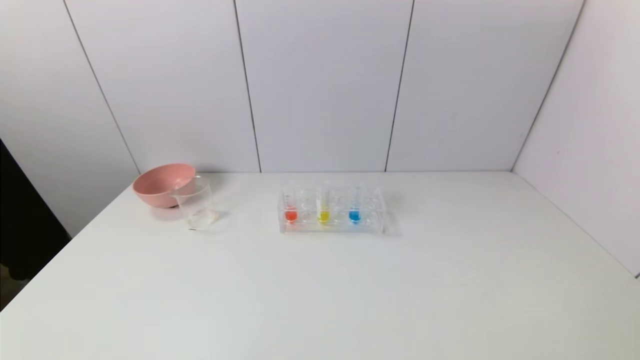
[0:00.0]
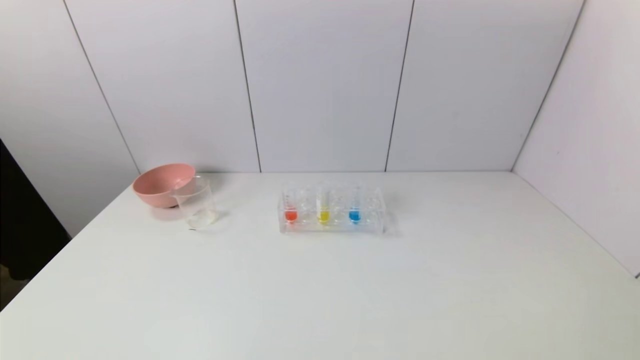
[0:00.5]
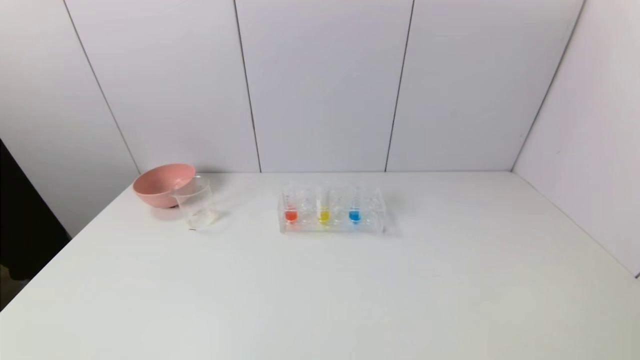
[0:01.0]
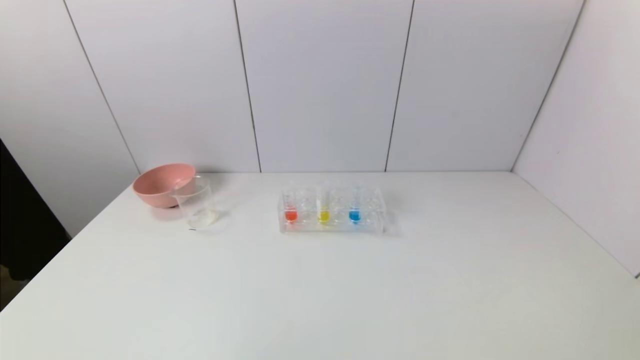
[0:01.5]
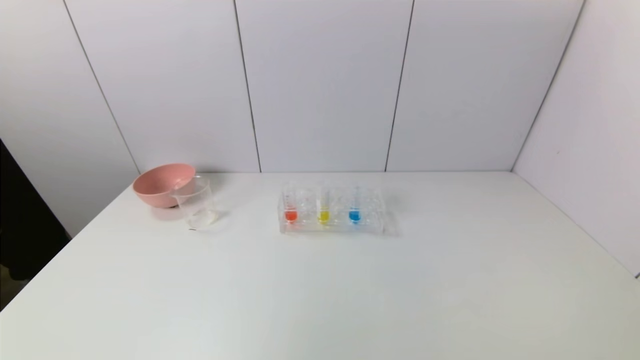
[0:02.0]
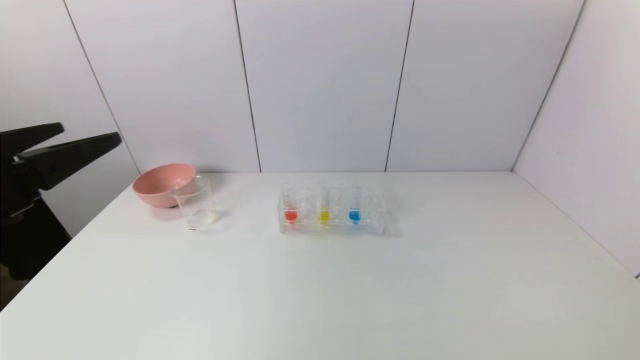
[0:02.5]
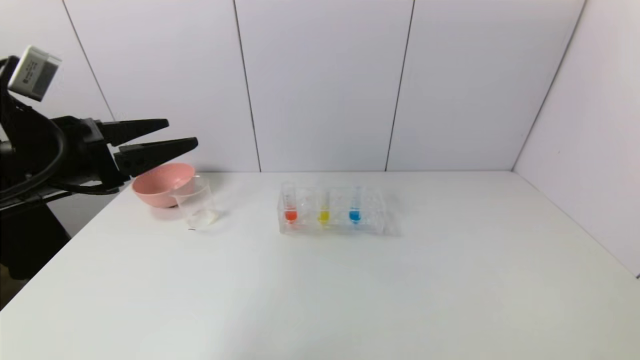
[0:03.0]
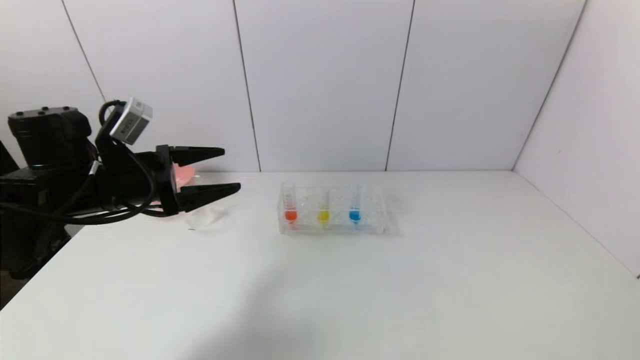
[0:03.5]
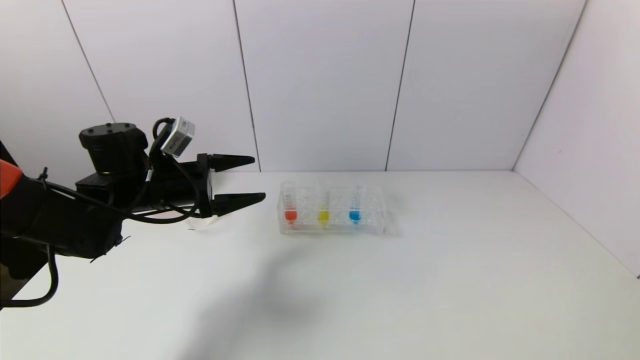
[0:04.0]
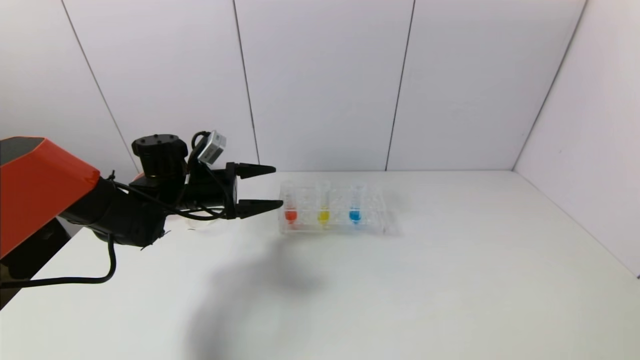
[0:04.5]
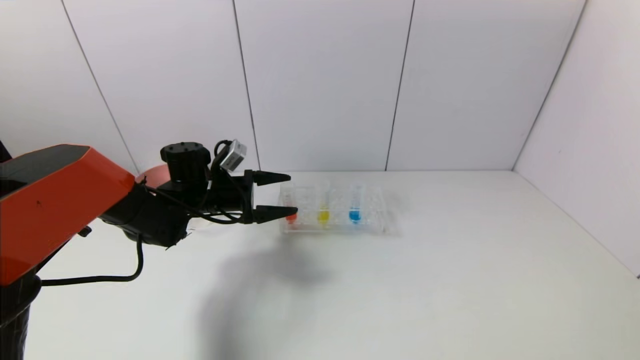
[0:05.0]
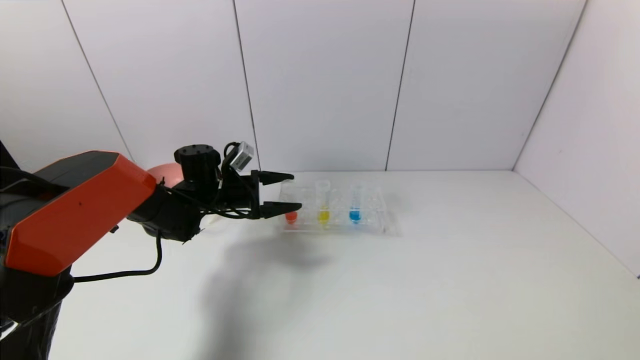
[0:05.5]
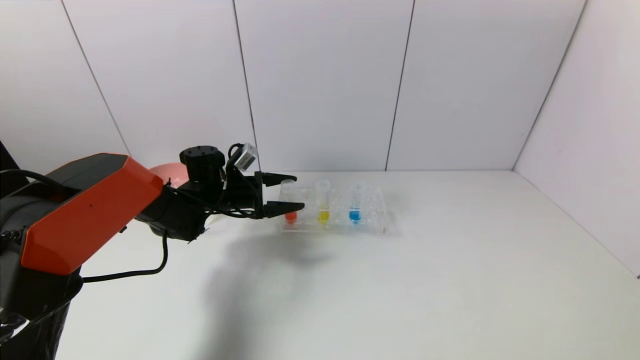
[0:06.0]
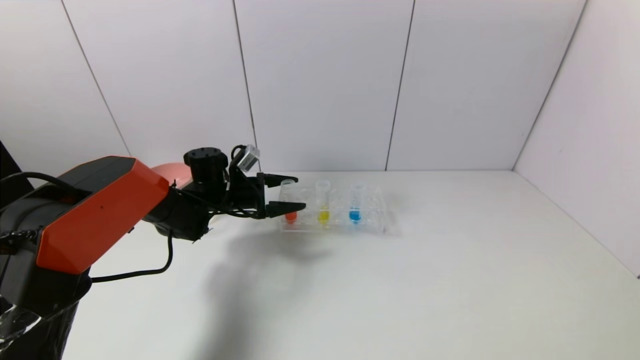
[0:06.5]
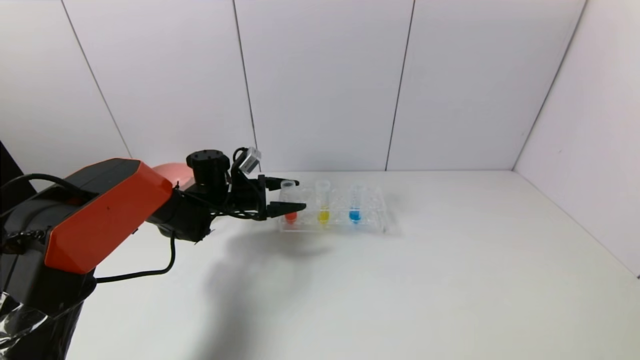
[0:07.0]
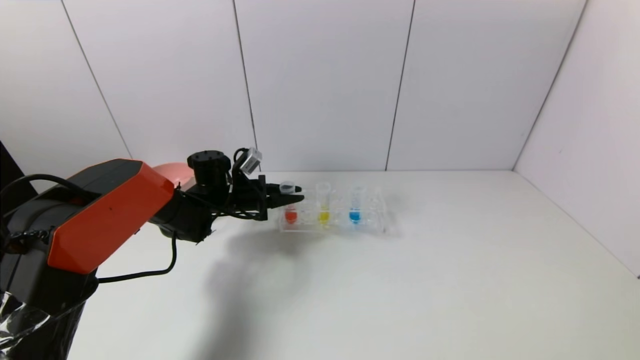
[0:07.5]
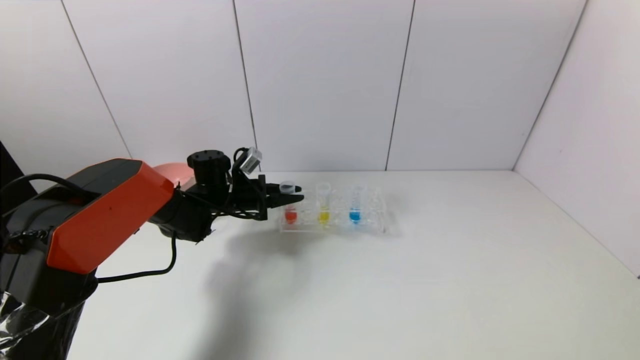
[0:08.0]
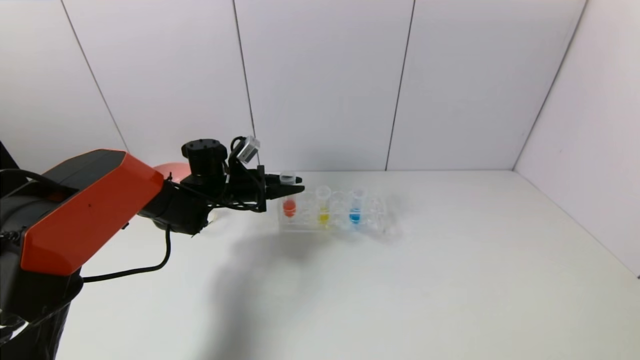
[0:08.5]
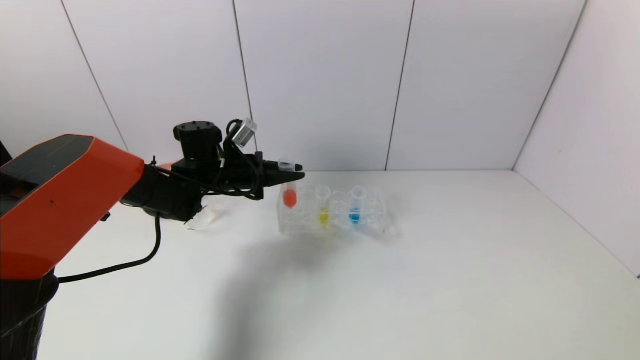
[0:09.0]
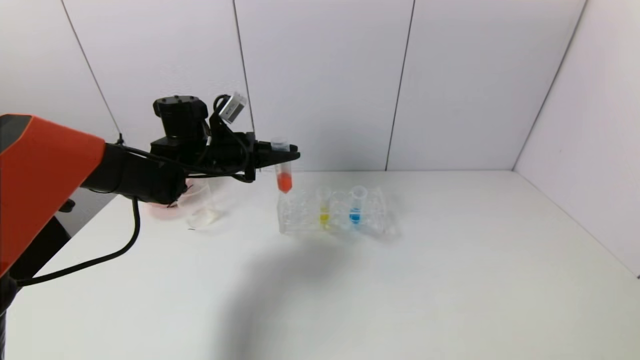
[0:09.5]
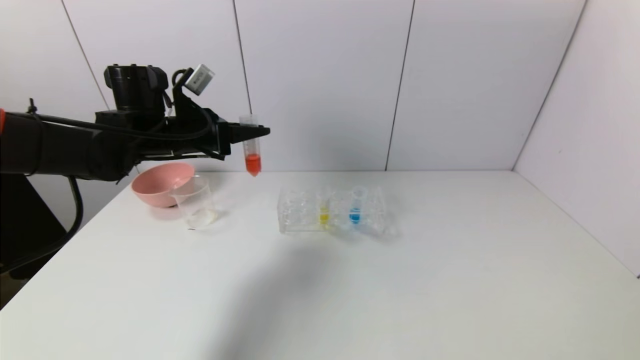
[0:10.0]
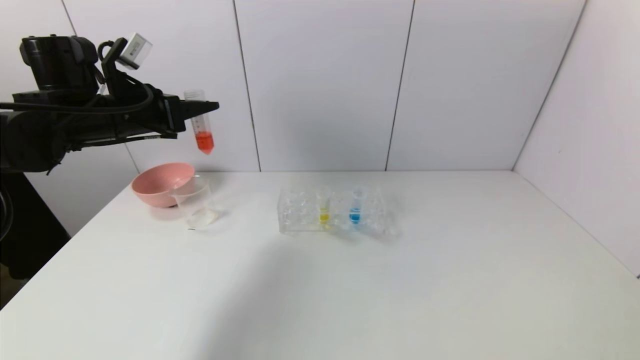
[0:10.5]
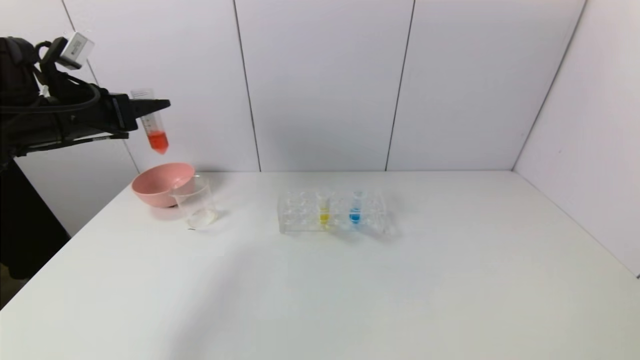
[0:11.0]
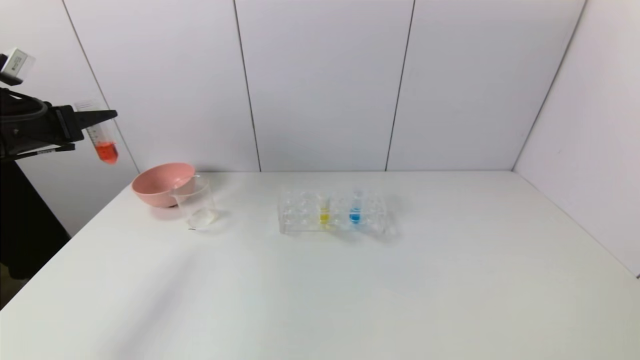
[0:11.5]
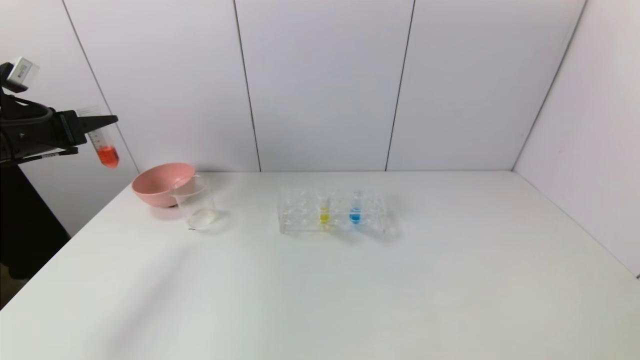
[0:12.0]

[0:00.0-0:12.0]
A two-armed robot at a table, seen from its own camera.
Task of the whole recording: pick up the test tube with yellow pigment and the test tube with red pigment by grippers and pour them into the beaker.
Step, 0:00.0 to 0:07.5: Grasp the red reagent with the left gripper.
0:02.0 to 0:04.0: The left gripper heads forward, covering roughly 30 cm.
0:04.0 to 0:06.0: The left gripper goes approximately 15 cm forward, downward and to the right.
0:06.0 to 0:08.0: The left gripper closes.
0:08.0 to 0:10.0: The left gripper moves upward, some 15 cm.
0:10.0 to 0:12.0: The left gripper moves to the left, approximately 20 cm.

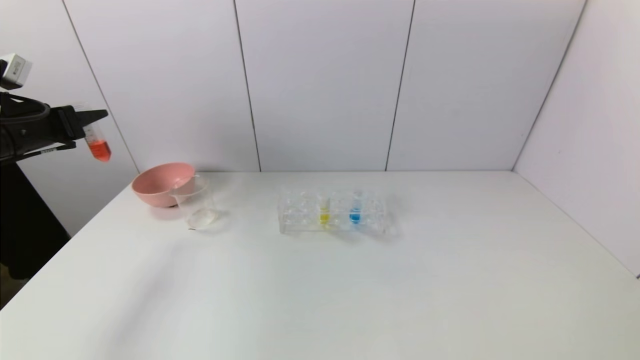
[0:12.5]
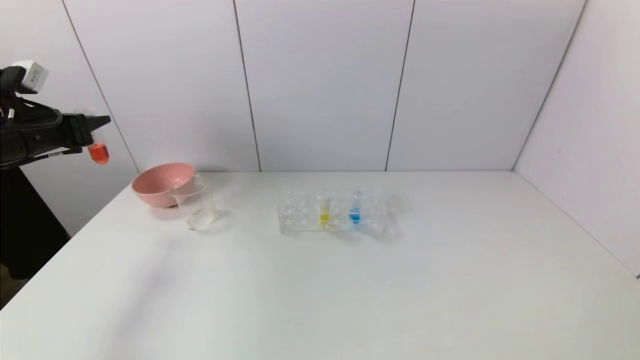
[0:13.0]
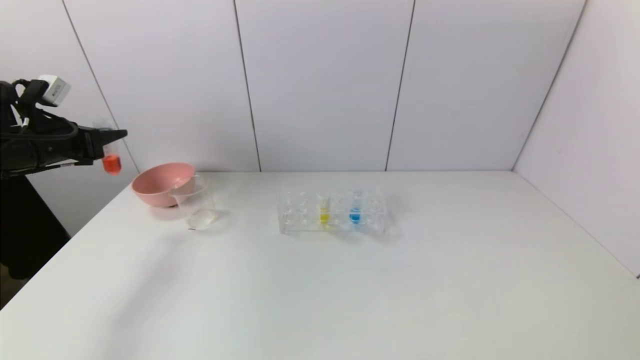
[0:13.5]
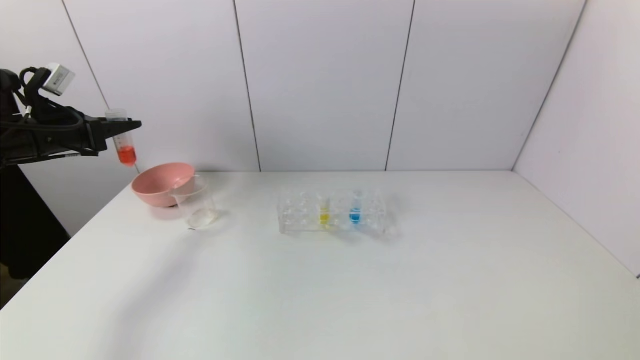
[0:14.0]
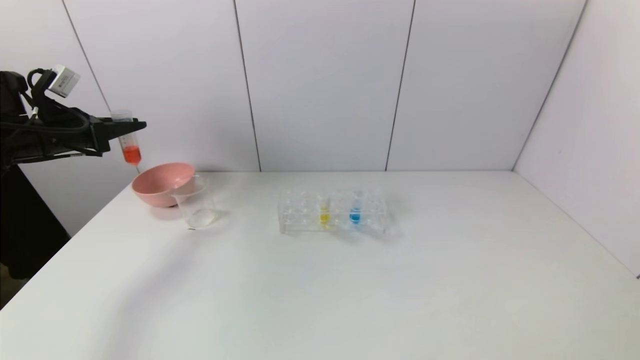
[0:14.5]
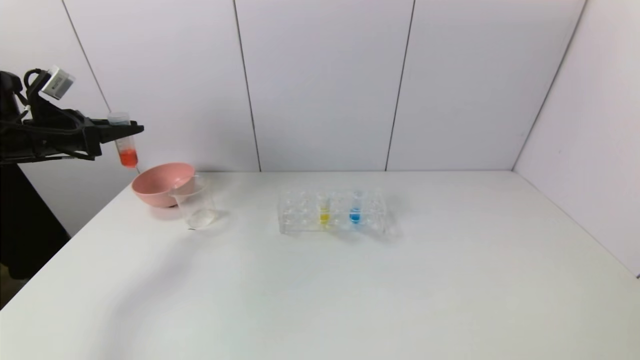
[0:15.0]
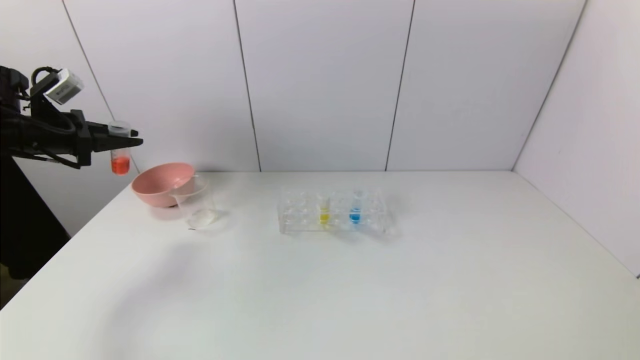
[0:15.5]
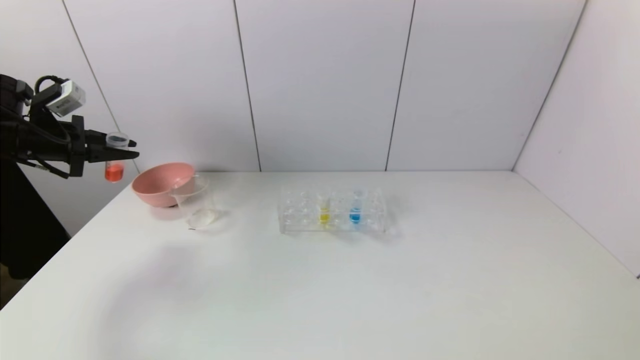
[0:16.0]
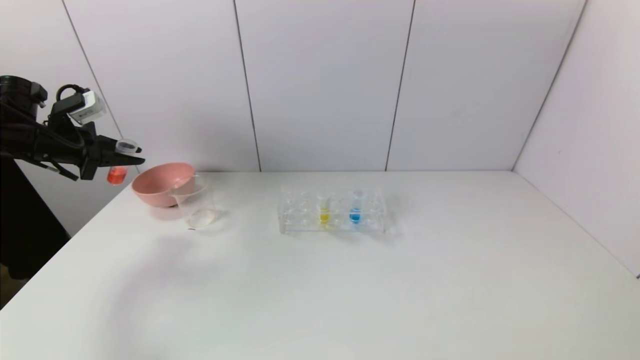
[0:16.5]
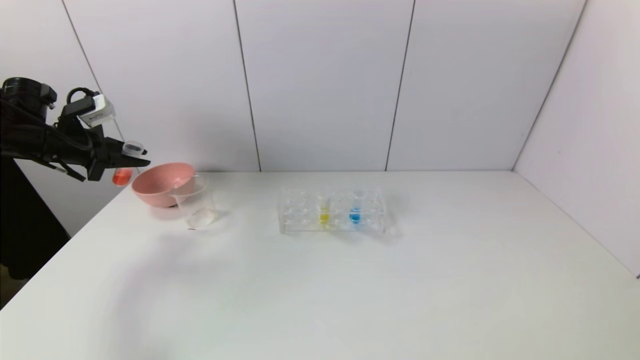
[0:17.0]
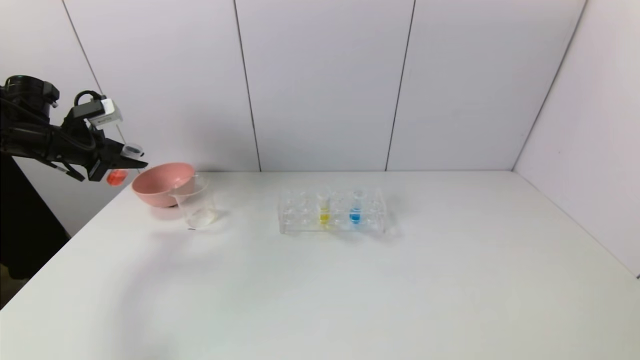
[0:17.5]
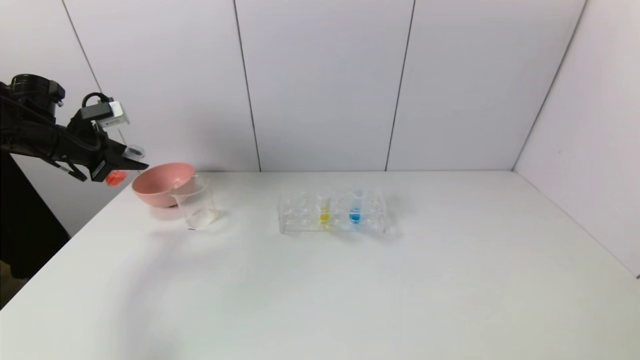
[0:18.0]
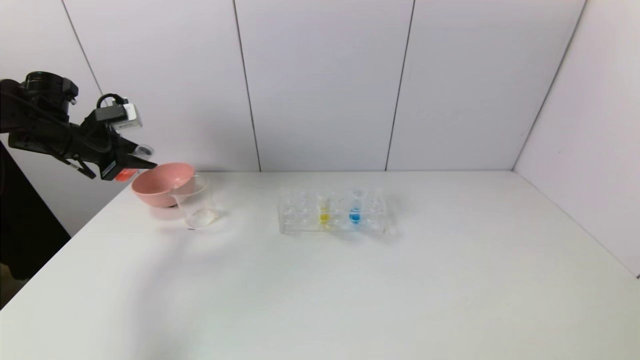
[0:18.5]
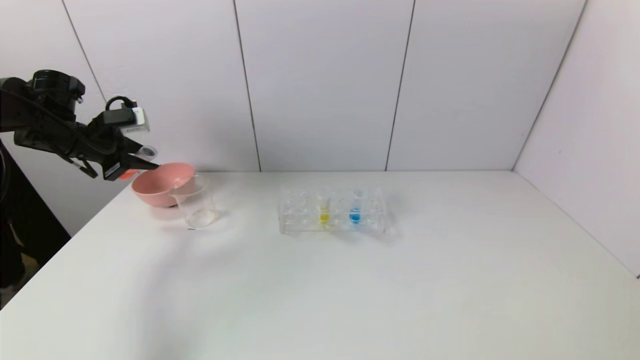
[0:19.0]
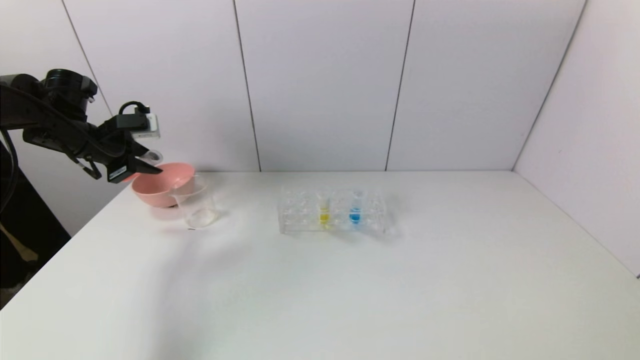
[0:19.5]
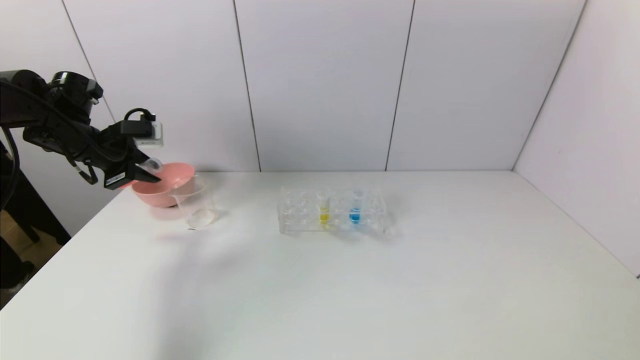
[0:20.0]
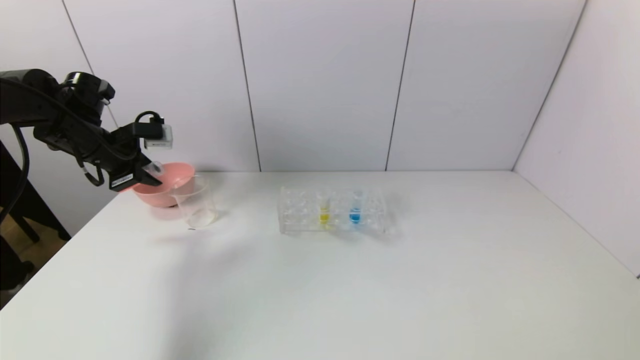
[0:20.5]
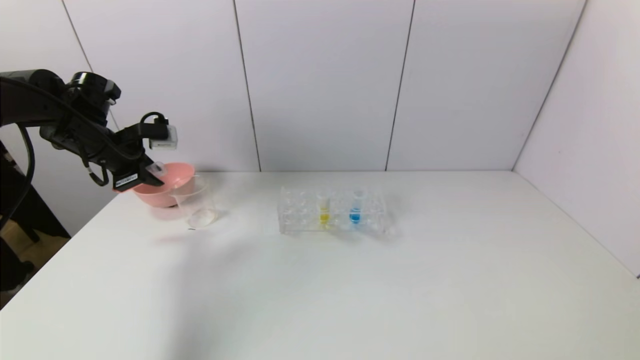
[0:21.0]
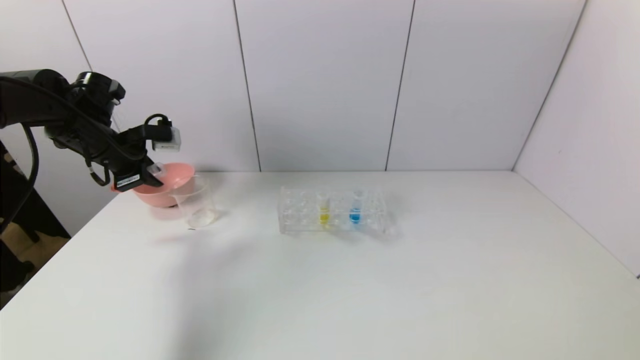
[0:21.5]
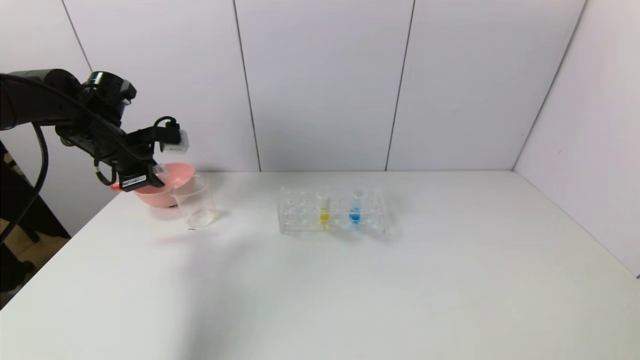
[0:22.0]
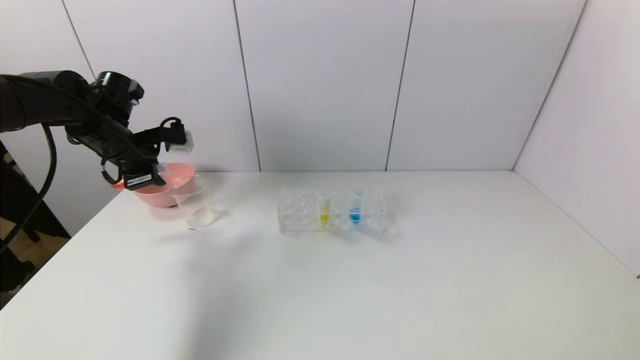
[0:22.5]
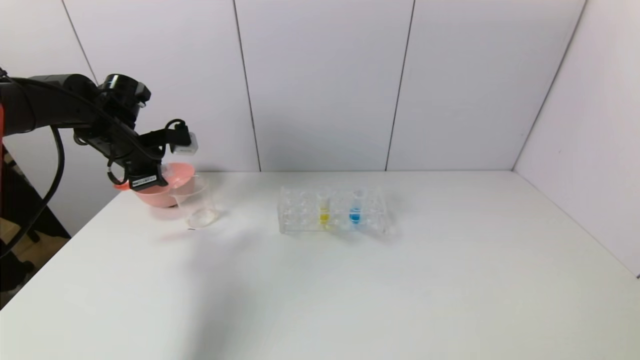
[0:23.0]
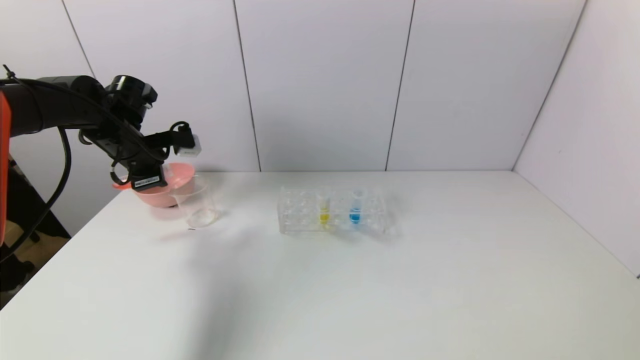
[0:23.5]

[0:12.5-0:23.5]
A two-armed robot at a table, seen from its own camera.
Task of the whole recording: pick up the test tube with yellow pigment and the test tube with red pigment by grippers and pour them into the beaker.
0:16.0 to 0:18.0: The grippers stay close to where they were, moving slightly.
0:18.0 to 0:20.0: The left gripper goes some 5 cm to the right.
0:20.0 to 0:21.5: The grippers move only a little.
0:21.5 to 0:23.5: The grippers make only small movements.